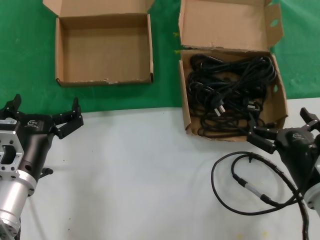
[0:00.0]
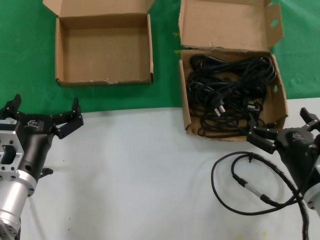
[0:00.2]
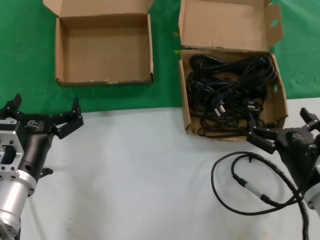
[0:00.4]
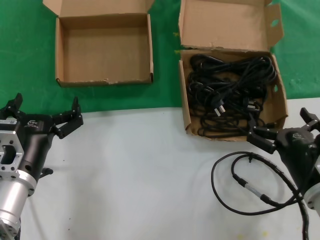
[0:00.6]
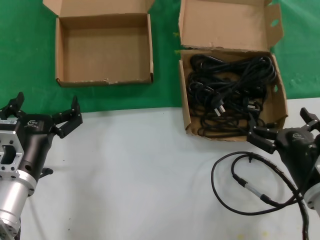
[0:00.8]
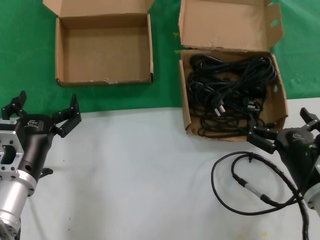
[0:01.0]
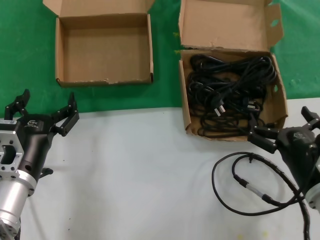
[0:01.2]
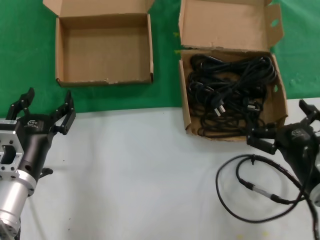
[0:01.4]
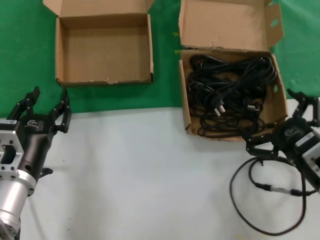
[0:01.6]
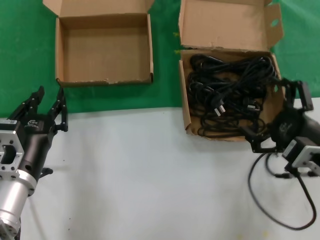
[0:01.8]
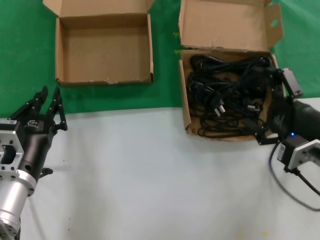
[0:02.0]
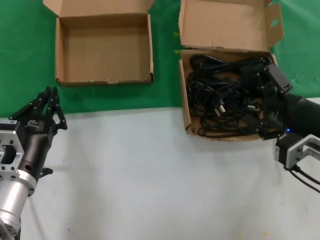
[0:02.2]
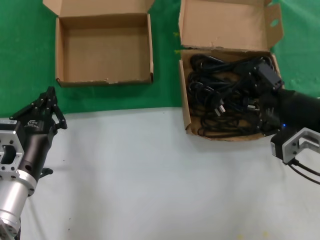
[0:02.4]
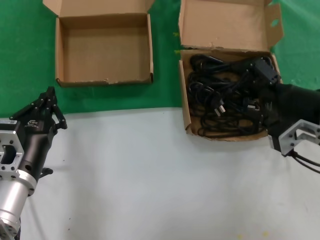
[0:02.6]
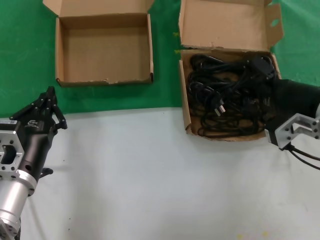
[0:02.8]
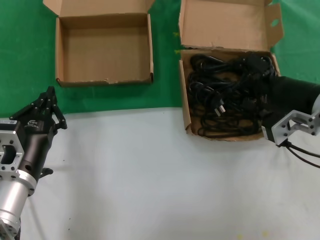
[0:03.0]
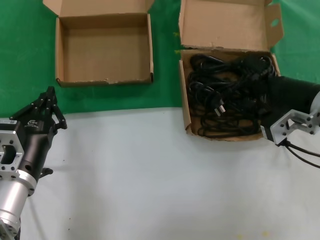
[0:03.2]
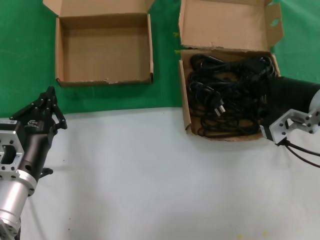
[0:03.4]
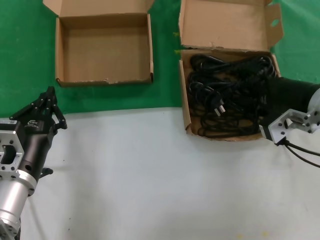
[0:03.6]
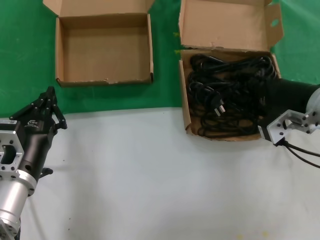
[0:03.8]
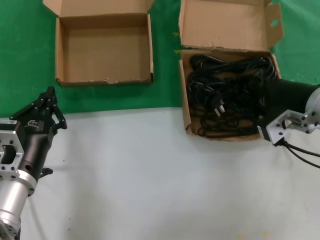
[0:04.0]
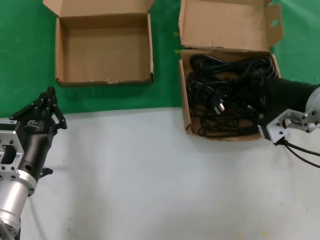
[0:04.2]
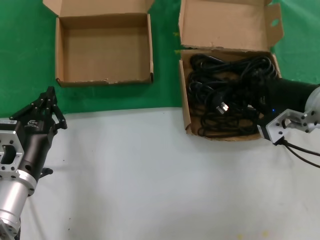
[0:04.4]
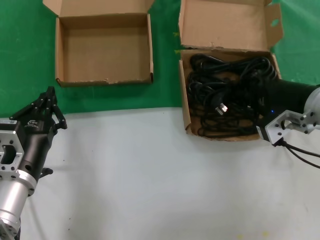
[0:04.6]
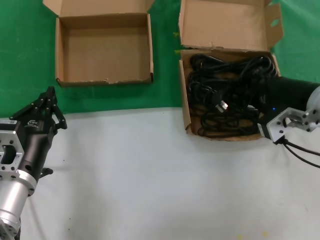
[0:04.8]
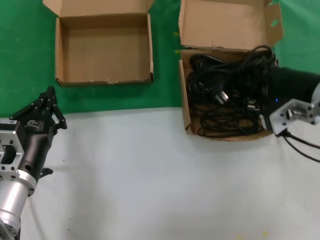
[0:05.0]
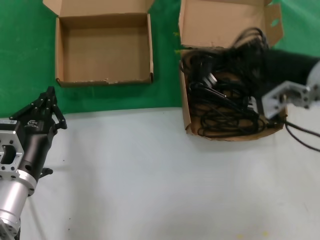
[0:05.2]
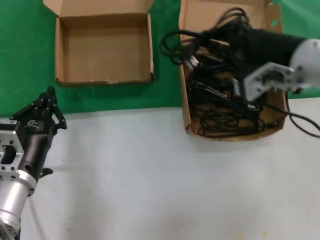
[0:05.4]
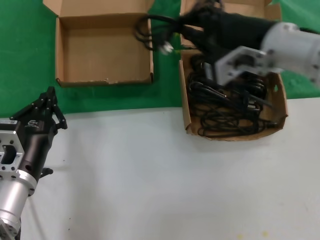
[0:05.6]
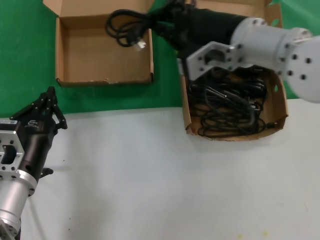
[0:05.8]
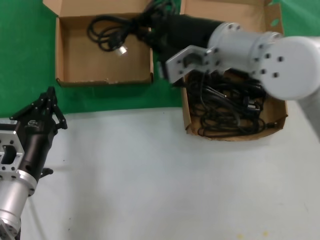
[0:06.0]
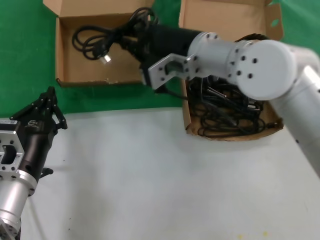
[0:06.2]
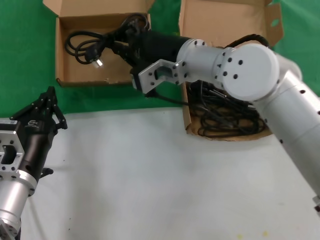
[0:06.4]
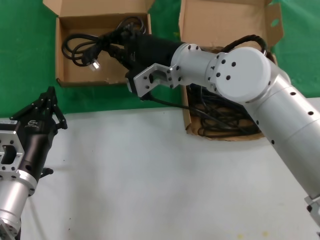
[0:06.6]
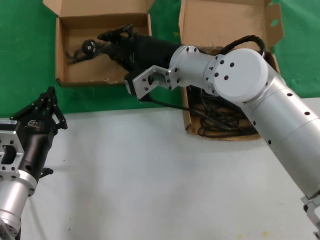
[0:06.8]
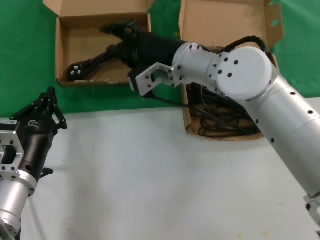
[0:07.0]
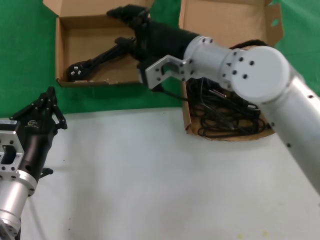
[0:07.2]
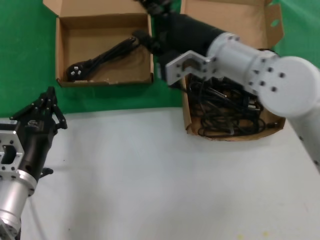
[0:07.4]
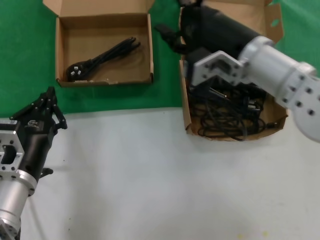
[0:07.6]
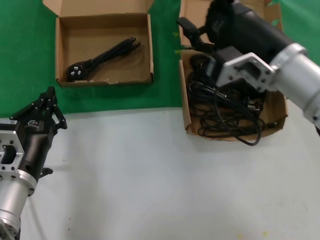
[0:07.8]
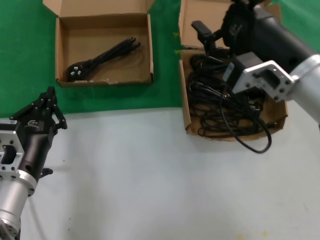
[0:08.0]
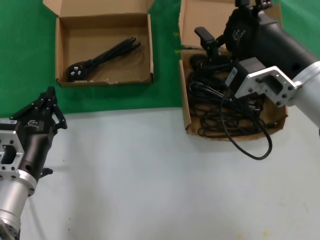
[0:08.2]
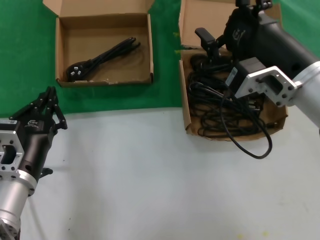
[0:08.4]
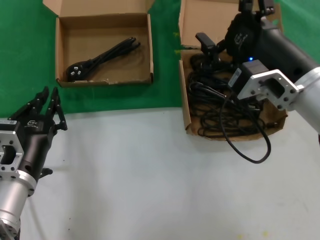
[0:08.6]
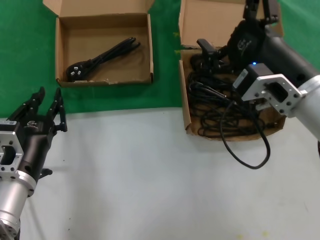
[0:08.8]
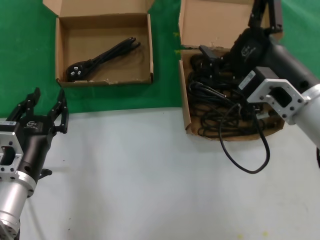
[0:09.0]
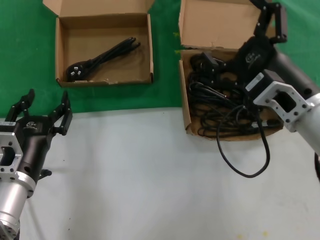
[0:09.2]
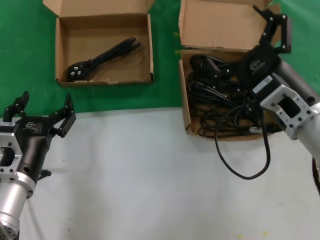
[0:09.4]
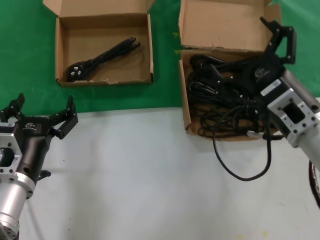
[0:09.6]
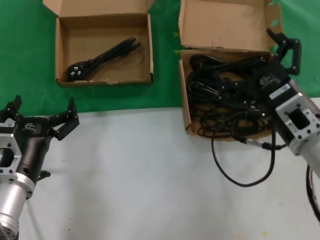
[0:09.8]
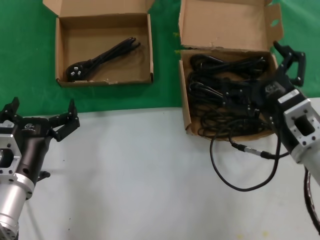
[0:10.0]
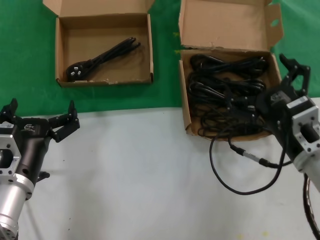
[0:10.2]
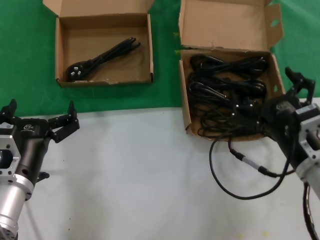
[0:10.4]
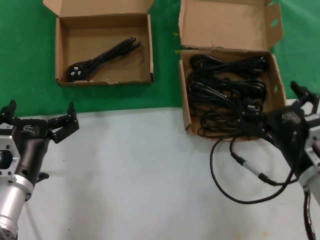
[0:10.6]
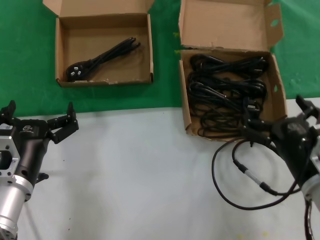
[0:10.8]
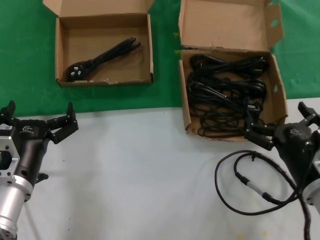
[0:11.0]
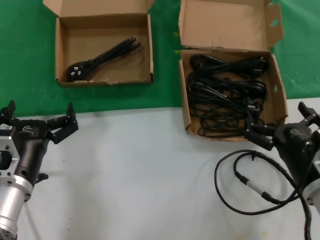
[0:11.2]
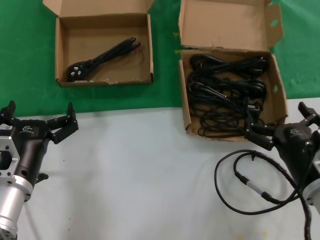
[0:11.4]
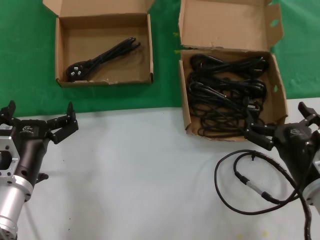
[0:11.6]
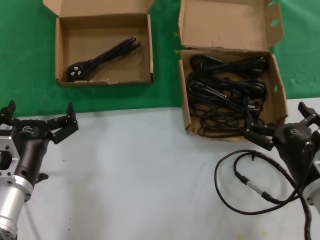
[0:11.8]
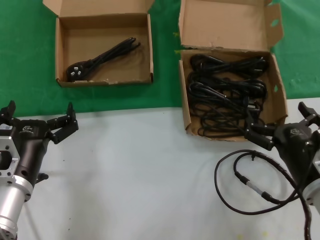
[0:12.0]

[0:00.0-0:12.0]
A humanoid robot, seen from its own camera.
Task of the whole recording: take the parts from the box containing them and put them into an empty box.
Step, 0:00.0 to 0:04.0: Grasp the data cable.
Step, 0:04.2 to 0:06.8: Place the data cable in the another box.
0:01.6 to 0:03.0: The right hand heads upward and forward, covering about 15 cm.
0:03.0 to 0:04.4: The hands make only small movements.
0:04.4 to 0:06.0: The right hand shifts about 20 cm to the left and upward.
0:07.6 to 0:09.0: The right hand moves backward and to the right, roughly 10 cm.
0:09.0 to 0:10.4: The right hand heads downward, covering about 10 cm.
0:10.4 to 0:12.0: There are only small adjustments of the hands.

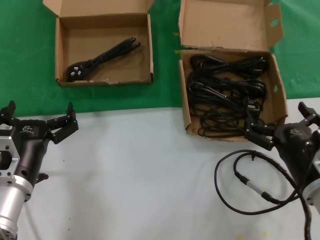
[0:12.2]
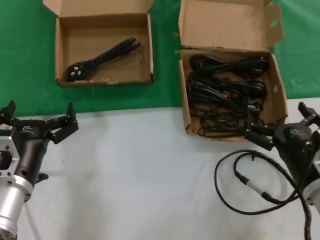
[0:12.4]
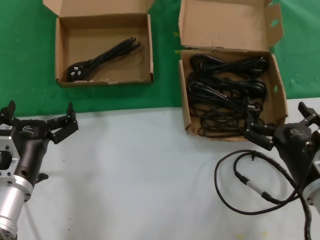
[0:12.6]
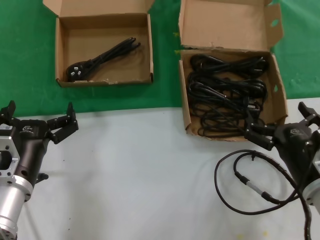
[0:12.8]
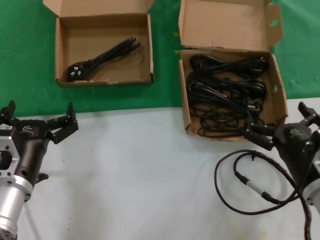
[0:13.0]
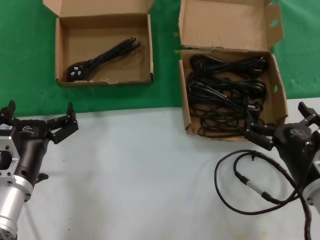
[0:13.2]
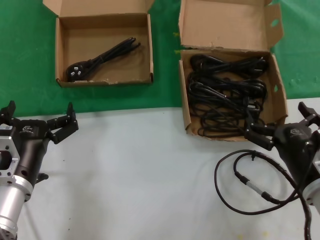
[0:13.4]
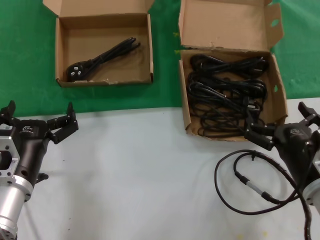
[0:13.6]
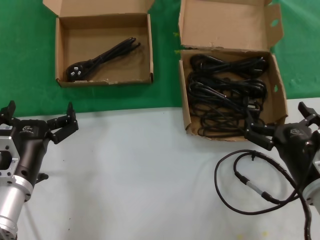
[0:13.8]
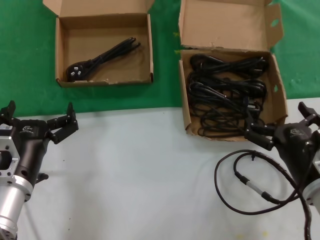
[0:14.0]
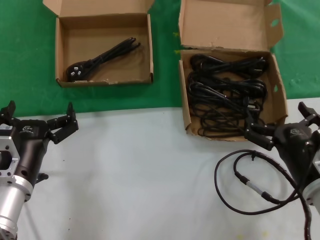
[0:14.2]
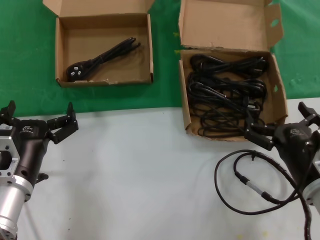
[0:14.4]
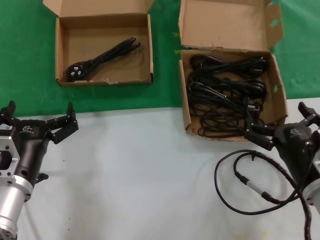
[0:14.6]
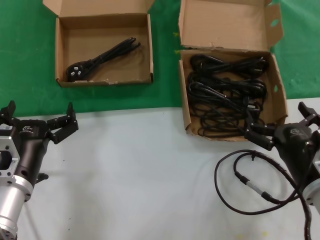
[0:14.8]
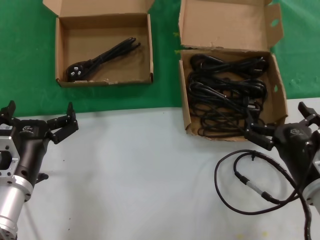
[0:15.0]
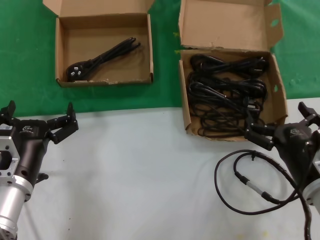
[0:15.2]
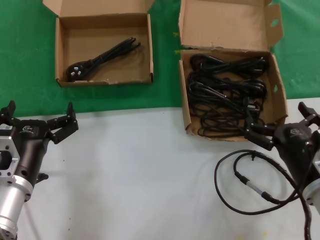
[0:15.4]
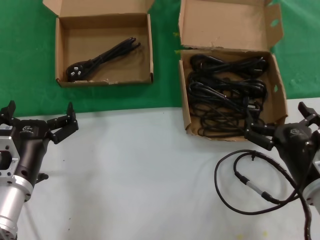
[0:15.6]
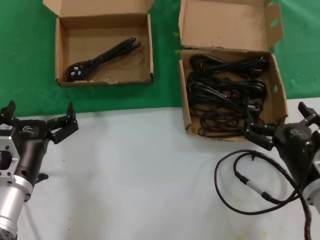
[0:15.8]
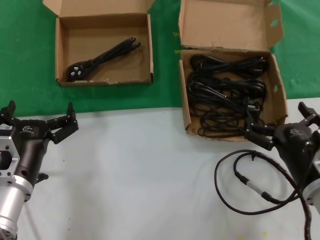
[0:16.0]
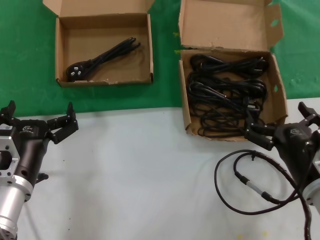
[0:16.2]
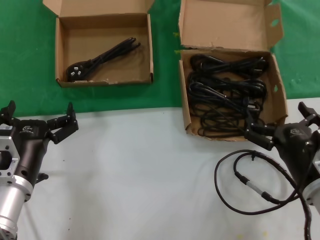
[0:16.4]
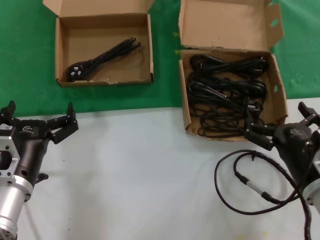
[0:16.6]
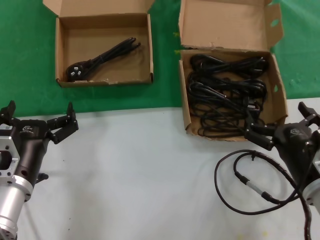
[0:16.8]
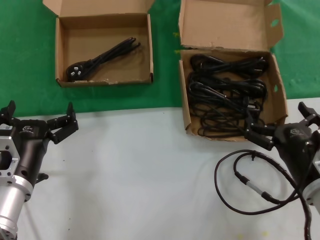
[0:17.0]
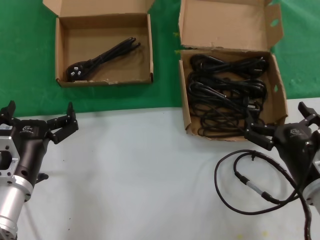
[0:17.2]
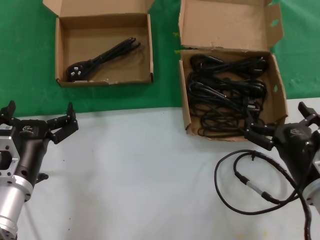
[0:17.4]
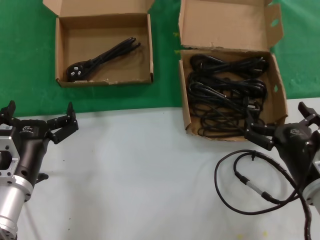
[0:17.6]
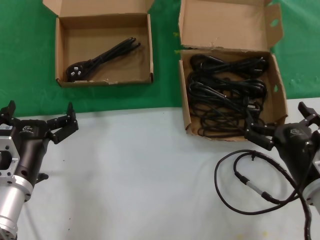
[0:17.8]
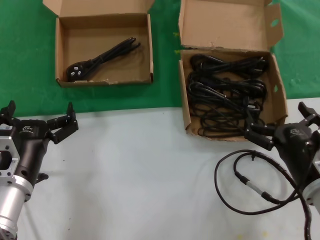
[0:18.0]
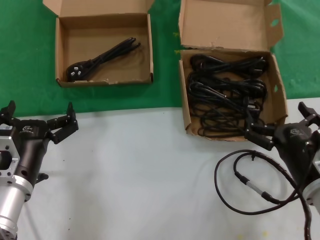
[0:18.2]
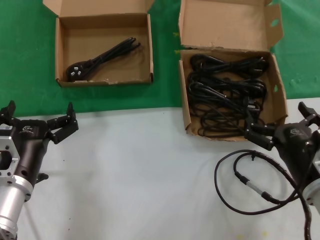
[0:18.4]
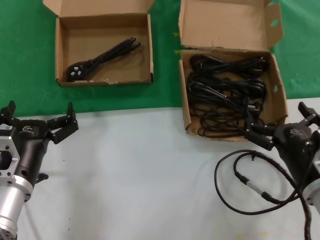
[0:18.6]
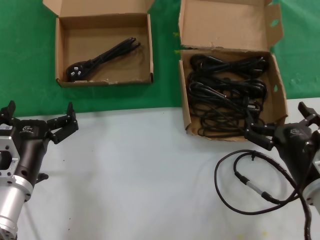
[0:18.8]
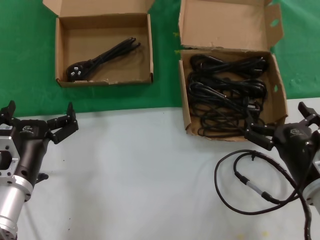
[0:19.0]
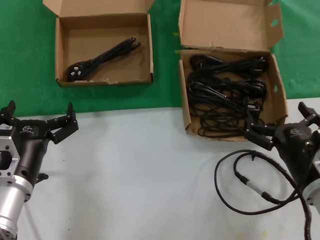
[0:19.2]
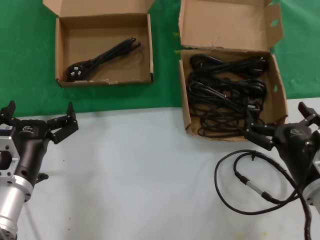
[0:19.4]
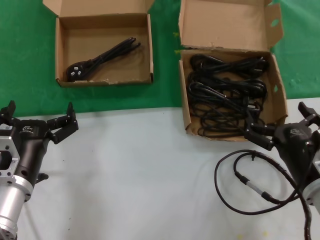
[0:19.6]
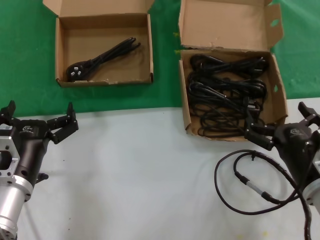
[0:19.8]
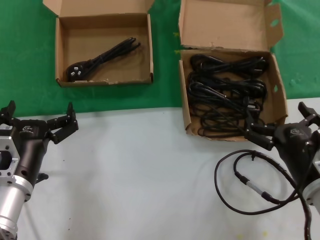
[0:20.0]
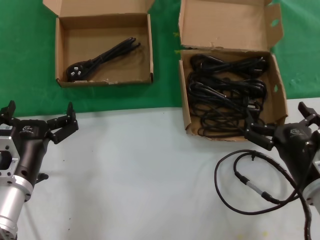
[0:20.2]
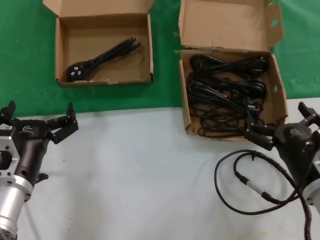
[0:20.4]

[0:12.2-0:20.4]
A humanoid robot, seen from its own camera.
Task of the whole recording: take the parts from the box containing them and put them into an empty box.
0:12.2 to 0:20.4: Both hands stay put.

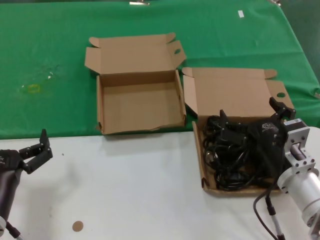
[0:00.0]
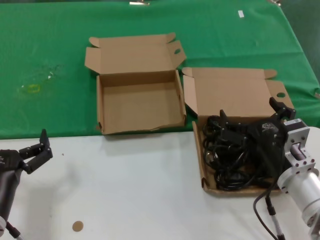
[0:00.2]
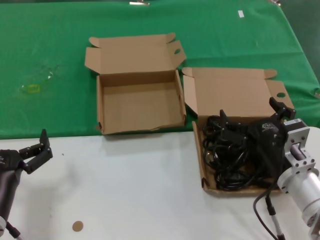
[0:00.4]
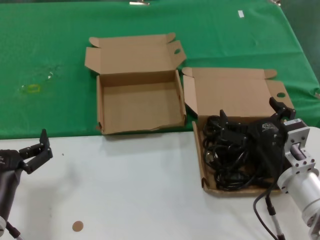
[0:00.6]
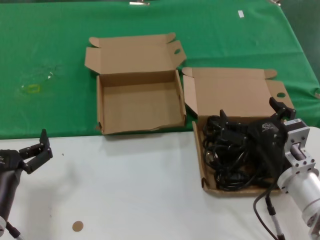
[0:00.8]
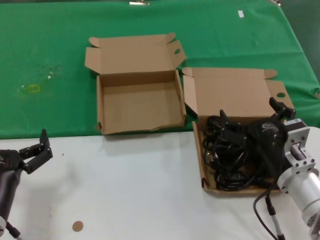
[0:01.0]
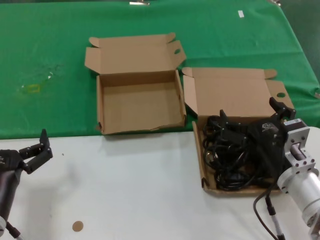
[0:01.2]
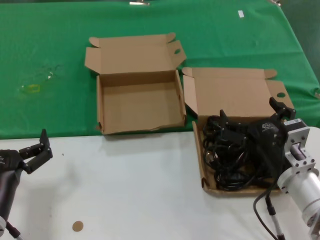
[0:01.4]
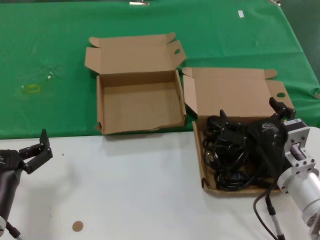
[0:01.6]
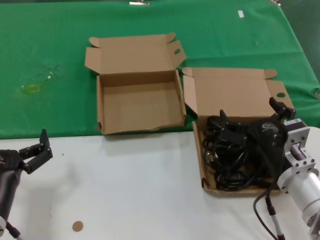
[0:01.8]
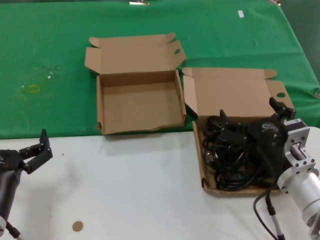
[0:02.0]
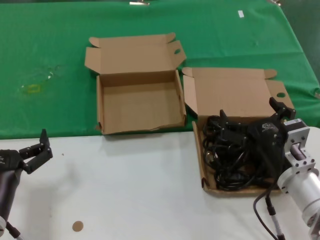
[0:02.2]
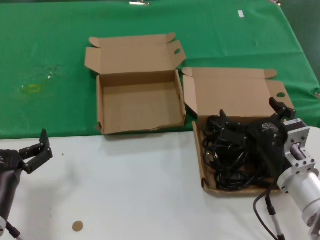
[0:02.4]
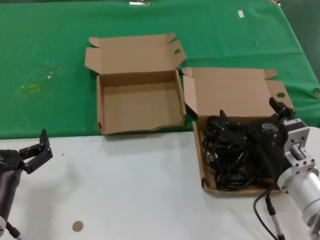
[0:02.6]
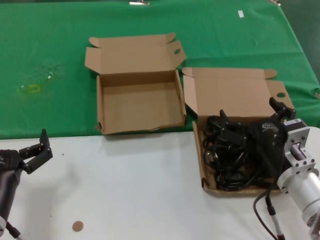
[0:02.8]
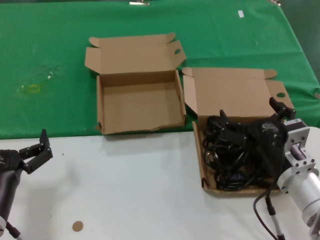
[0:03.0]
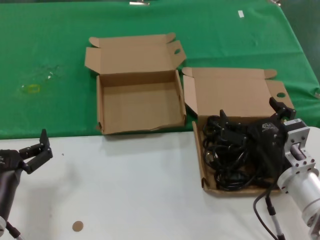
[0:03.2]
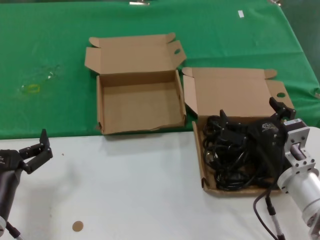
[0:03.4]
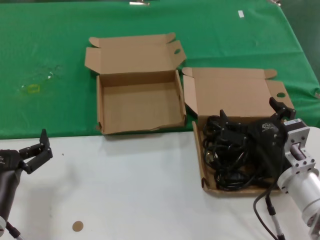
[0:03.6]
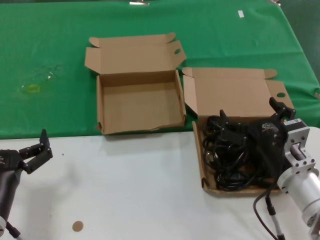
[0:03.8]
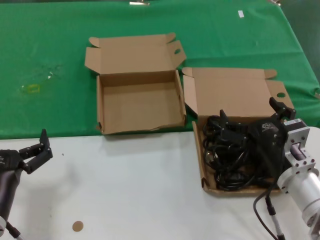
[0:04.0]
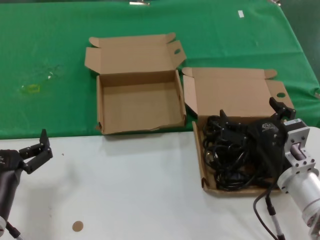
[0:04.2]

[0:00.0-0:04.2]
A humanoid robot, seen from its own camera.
Task of the whole recording: take the parts from the box containing them and put them into an empty box.
0:00.0 to 0:04.2: Both hands stay about where they are.
